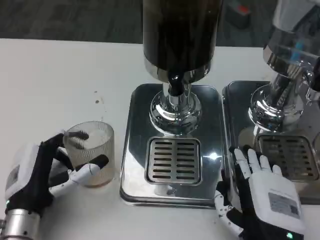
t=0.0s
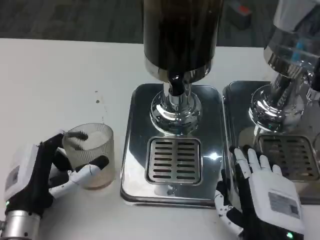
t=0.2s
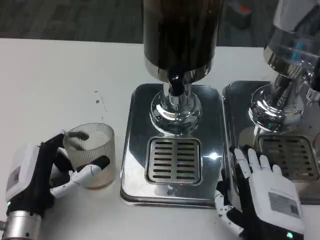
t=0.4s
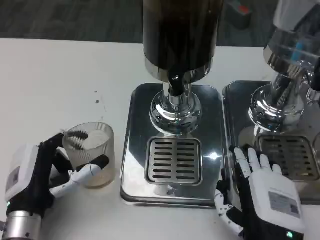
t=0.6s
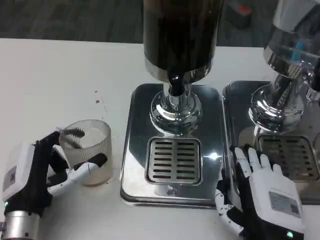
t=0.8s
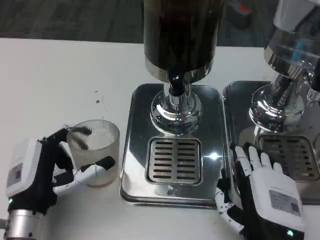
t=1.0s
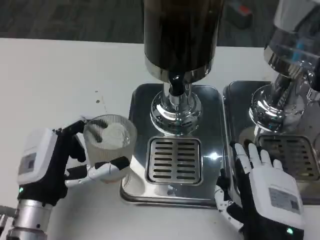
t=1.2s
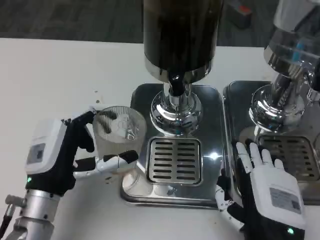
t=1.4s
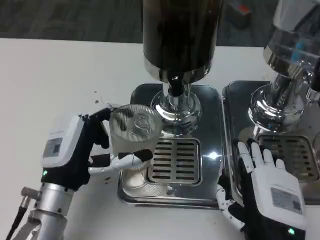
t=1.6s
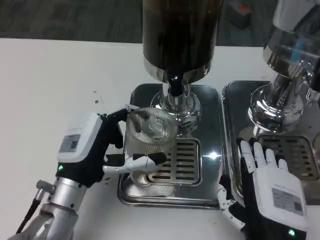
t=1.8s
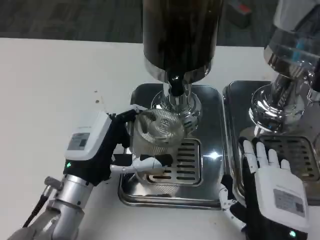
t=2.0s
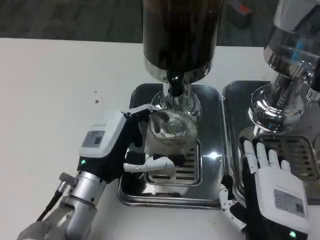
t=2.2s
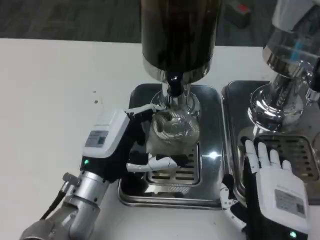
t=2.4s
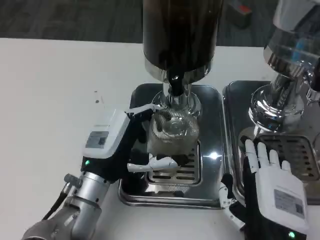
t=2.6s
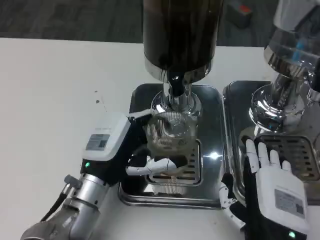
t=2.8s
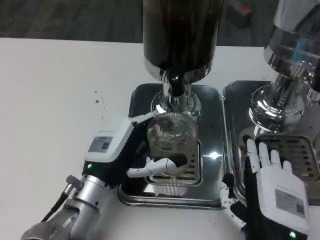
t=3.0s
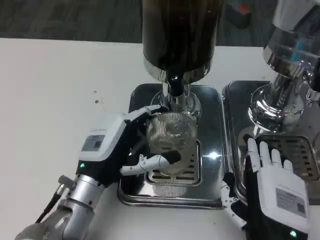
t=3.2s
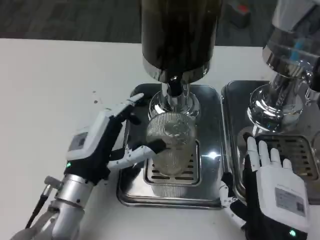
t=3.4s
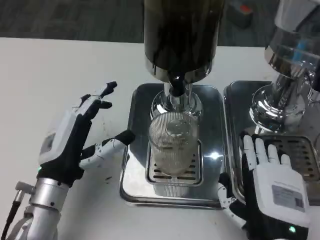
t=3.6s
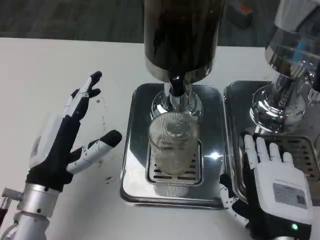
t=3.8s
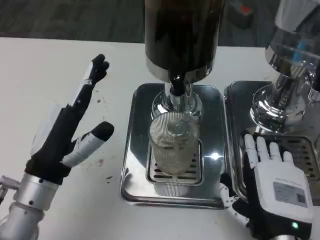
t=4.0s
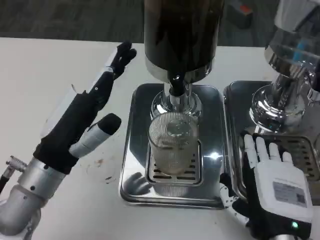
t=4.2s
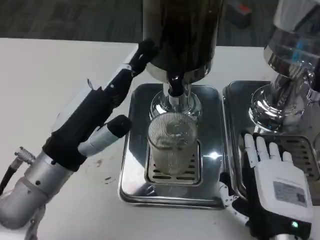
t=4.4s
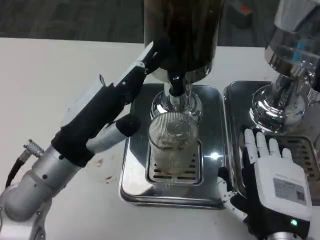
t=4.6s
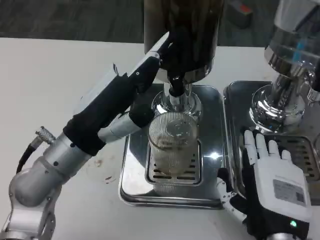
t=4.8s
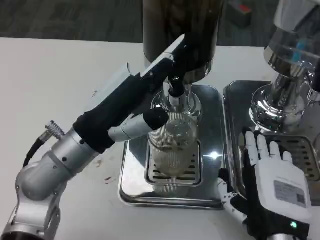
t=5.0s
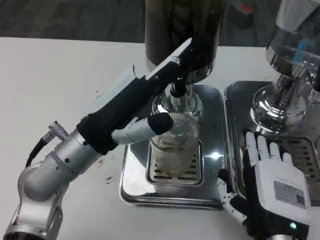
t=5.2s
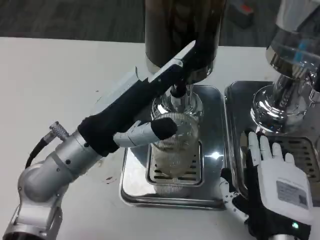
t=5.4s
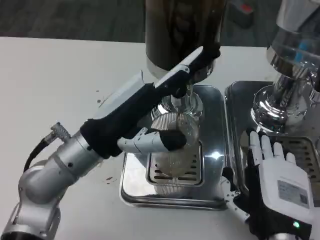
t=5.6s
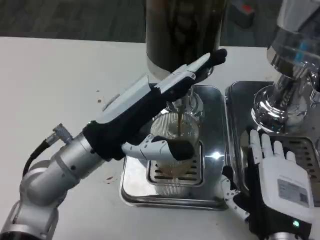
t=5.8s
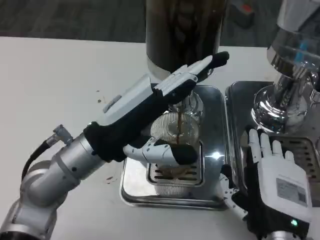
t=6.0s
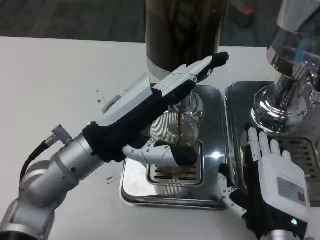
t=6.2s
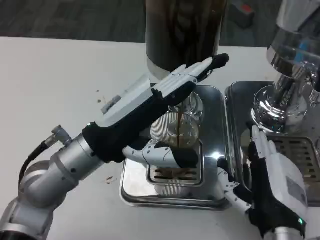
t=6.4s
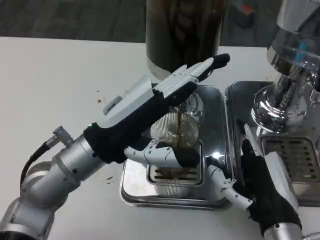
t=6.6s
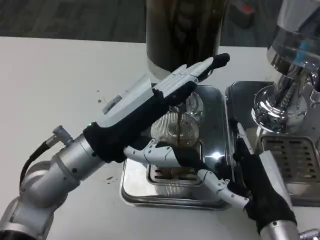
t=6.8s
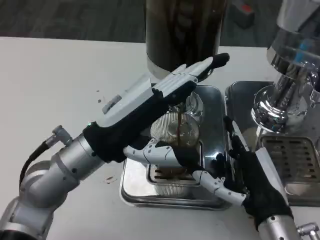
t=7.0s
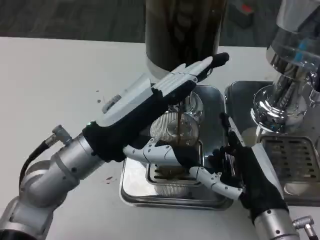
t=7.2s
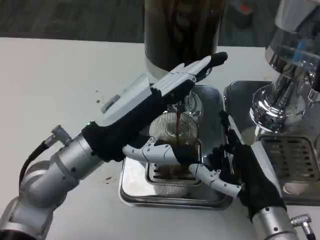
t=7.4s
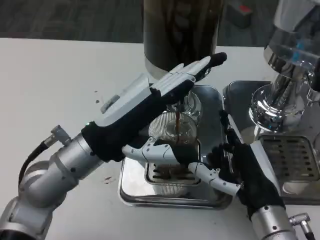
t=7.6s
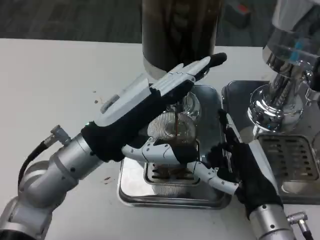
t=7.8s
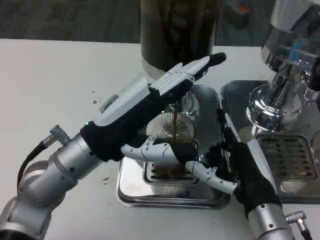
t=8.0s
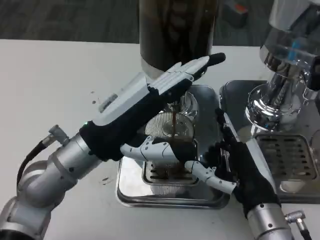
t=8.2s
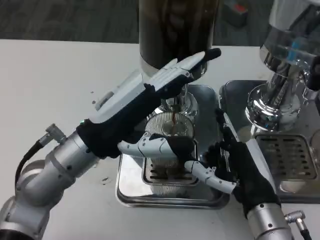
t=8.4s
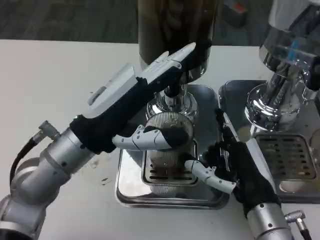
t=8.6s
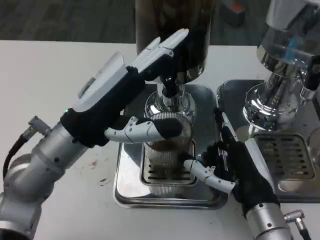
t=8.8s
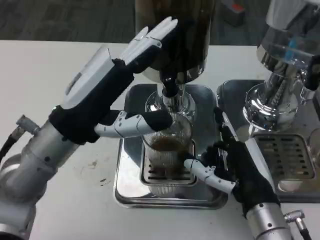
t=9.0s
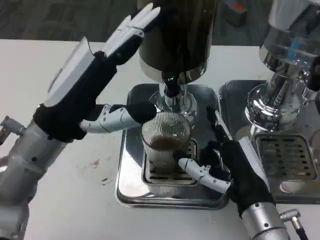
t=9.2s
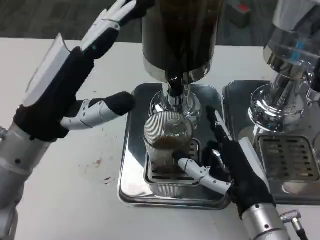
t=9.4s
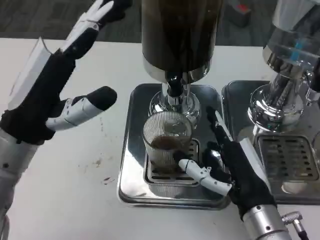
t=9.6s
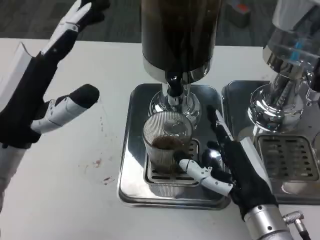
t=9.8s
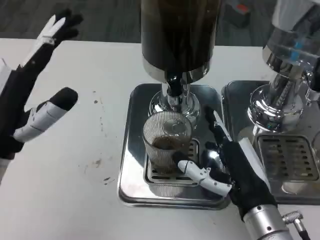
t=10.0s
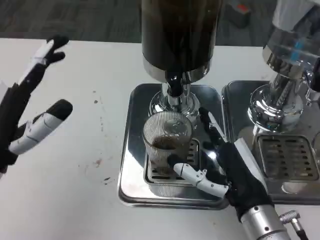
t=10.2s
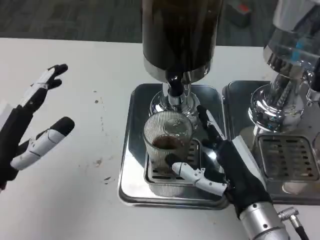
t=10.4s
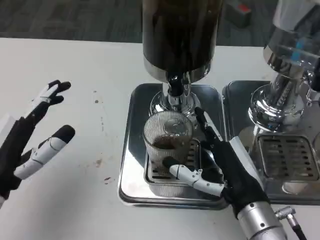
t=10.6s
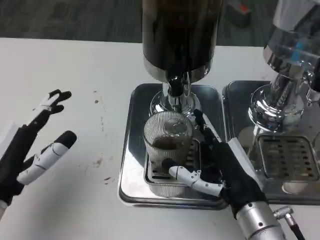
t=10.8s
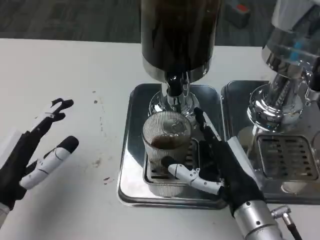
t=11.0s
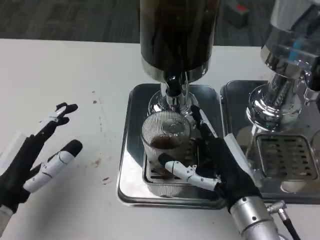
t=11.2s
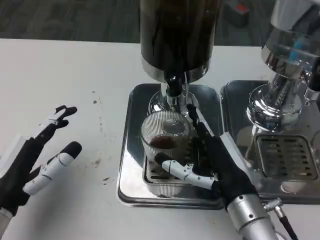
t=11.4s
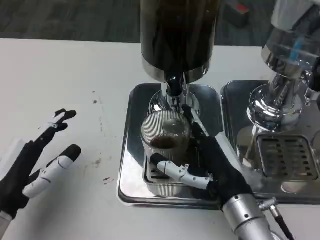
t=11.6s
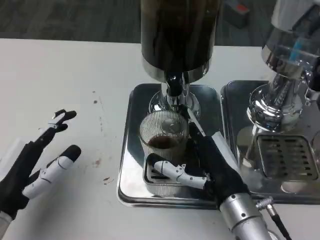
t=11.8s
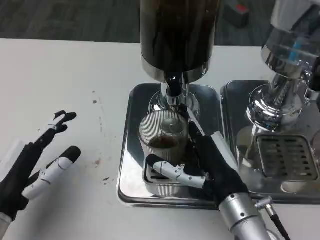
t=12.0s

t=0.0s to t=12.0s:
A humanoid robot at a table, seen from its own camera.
Task of the whole recording: Grasp the cup under the faucet to collect the drink, then remove the cup.
t=0.0s to t=1.6s: The left hand changes place by approximately 5 cm.
t=3.0s to t=4.4s: The left hand shifts about 10 cm upward.
t=9.0s to t=10.4s: The left hand travels to the left, backward and downward by approximately 10 cm.

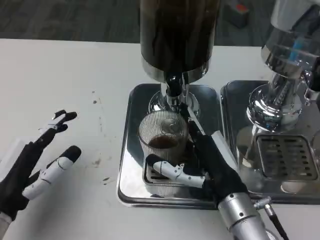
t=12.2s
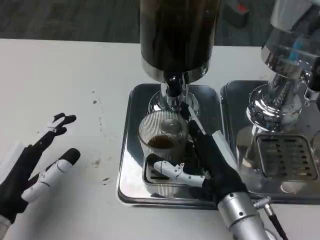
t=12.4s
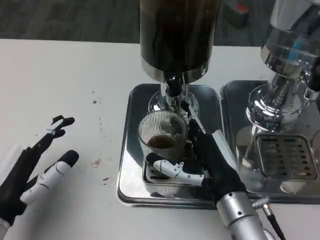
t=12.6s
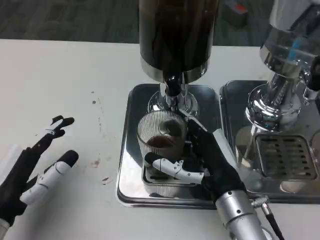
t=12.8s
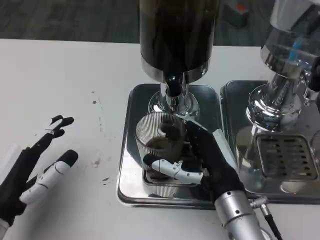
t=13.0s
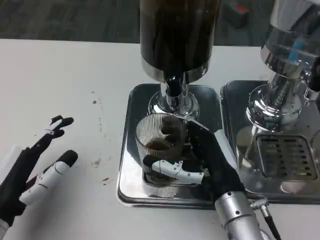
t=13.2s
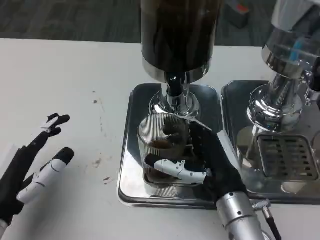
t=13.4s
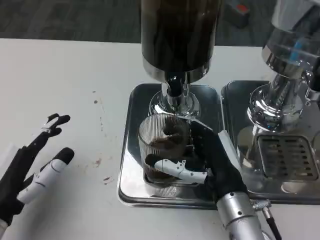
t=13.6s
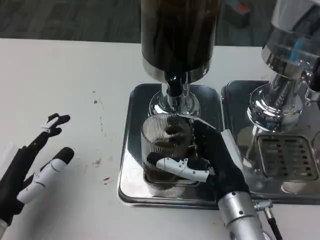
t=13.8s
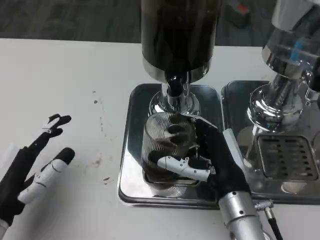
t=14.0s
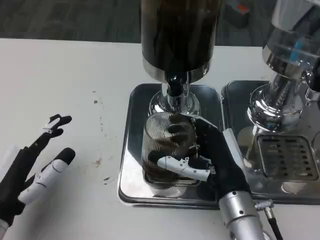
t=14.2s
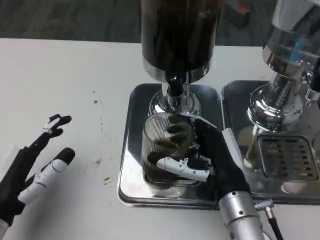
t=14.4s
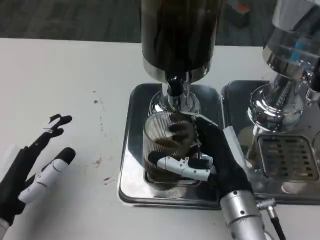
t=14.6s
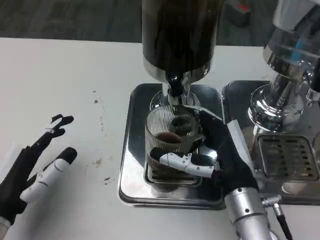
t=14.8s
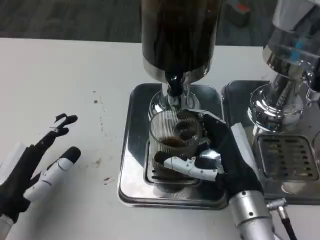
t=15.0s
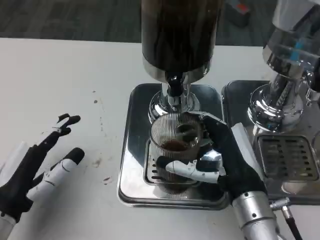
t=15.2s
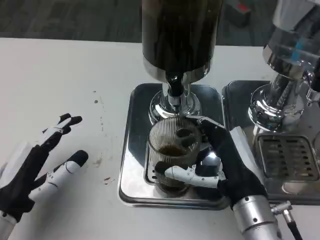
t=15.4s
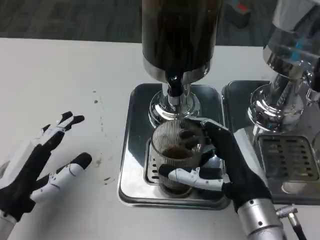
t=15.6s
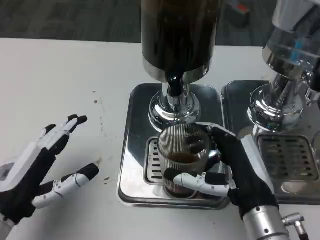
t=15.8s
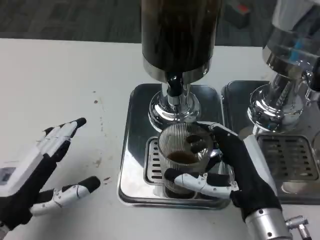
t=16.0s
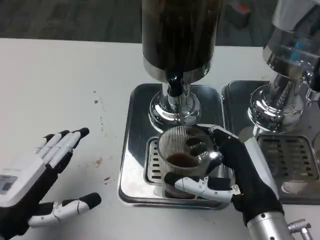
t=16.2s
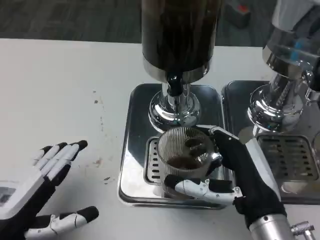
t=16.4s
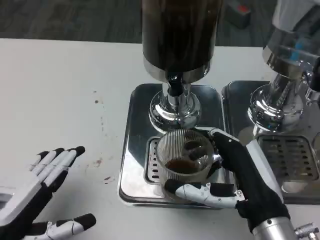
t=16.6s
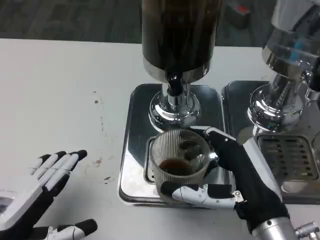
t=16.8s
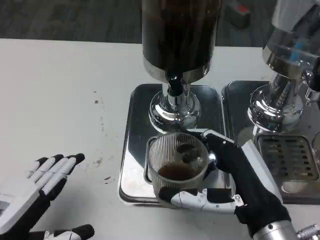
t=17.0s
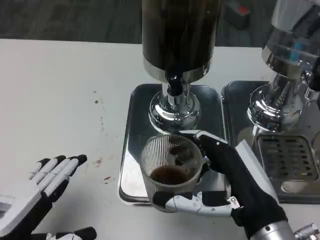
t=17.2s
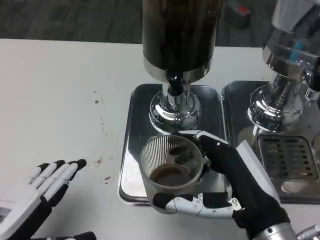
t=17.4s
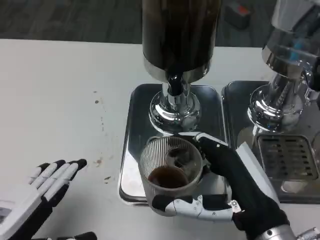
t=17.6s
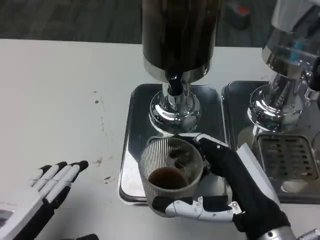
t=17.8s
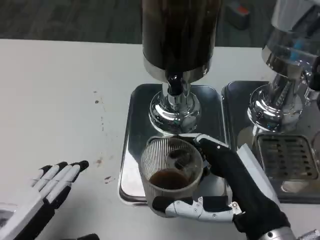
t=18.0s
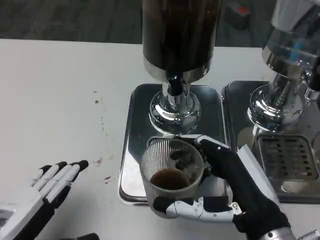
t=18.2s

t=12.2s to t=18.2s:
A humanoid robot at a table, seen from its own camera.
Task of the whole recording: Grasp the cup under the faucet to collect the drink, then remove the cup.
t=12.2s to t=15.2s: The hands move only a little.
t=15.2s to t=16.6s: The right hand moves approximately 5 cm. Meanwhile the left hand moves roughly 5 cm.

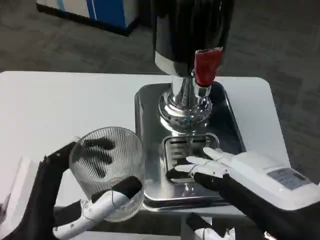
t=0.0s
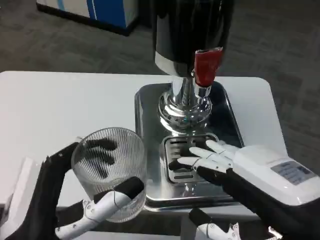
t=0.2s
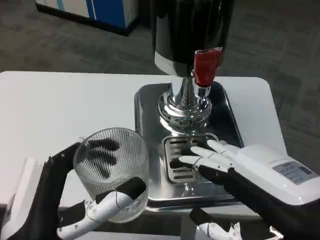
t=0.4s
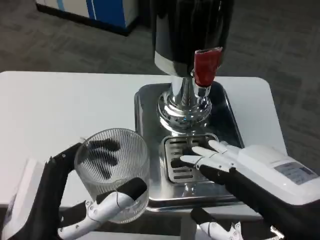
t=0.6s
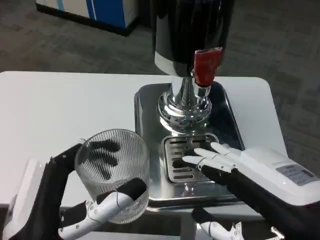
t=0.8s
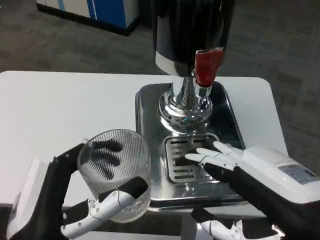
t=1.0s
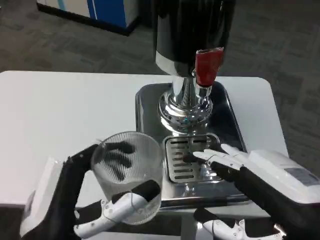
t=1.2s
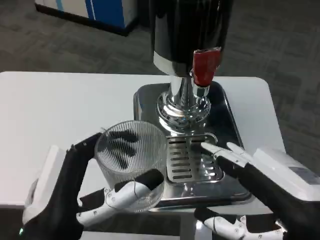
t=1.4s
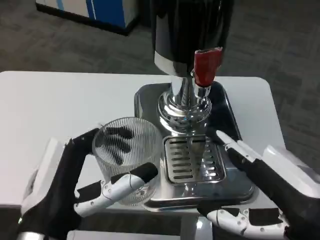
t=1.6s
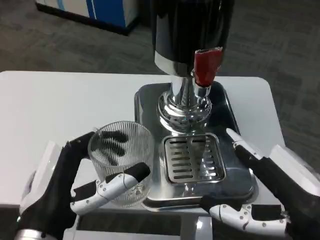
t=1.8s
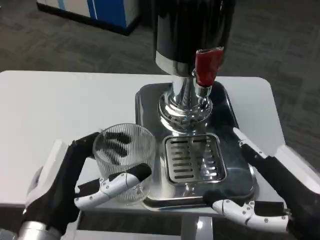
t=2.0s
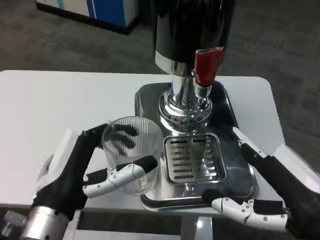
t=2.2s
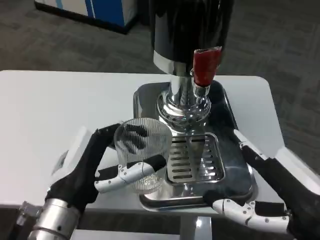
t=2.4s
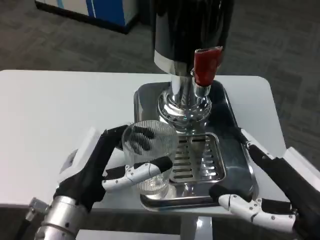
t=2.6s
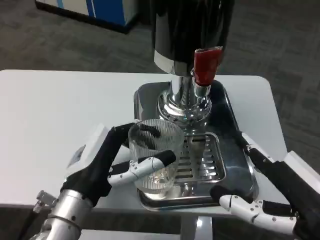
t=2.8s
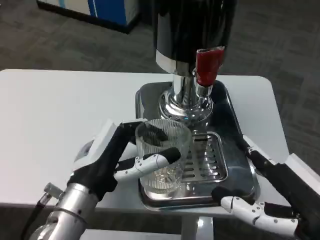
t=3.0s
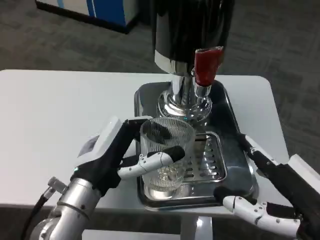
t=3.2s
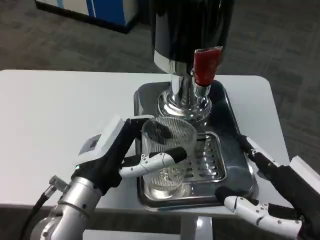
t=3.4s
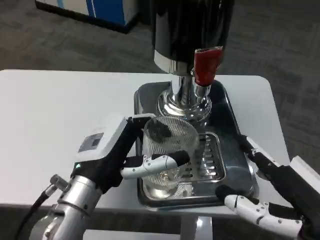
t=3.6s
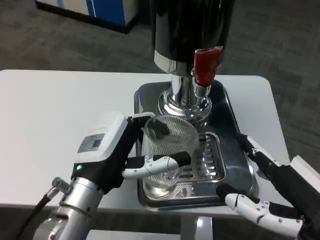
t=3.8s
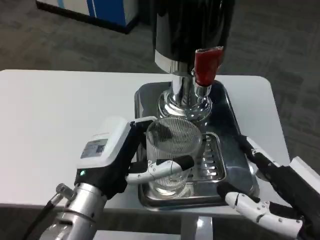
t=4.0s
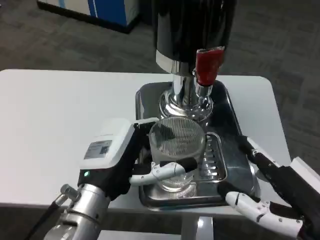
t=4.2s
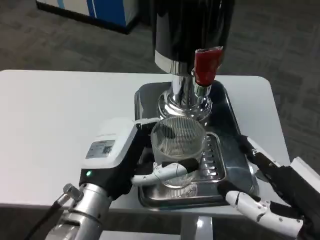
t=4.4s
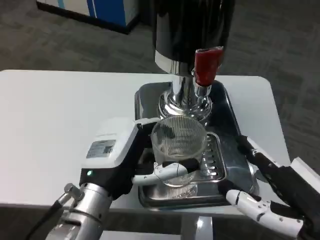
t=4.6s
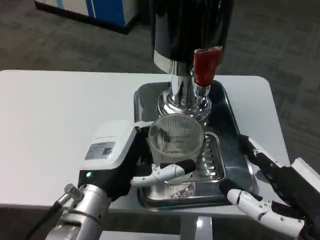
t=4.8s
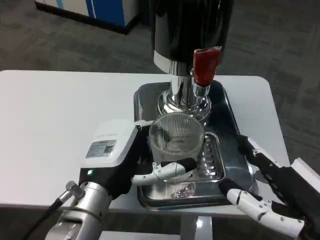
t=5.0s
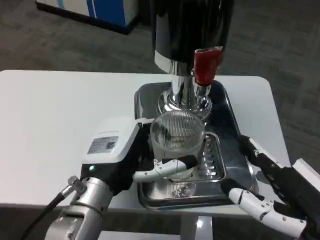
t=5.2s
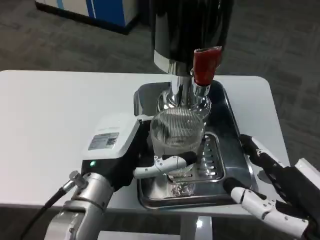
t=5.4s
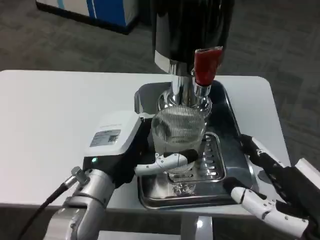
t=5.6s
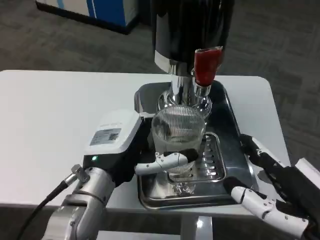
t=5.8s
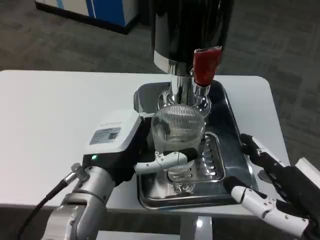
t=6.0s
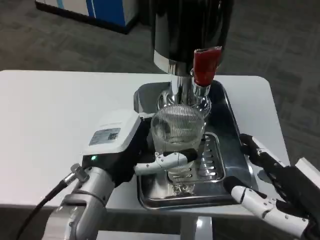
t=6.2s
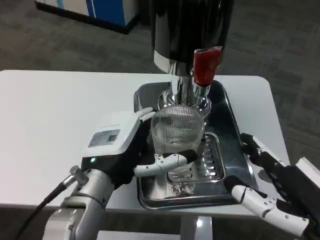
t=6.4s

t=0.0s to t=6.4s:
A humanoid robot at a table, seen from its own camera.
Task of the whole recording: Grasp the cup under the faucet to collect the drink, then remove the cup.
t=1.6s to t=3.2s: The left hand travels forward by about 10 cm.
t=4.8s to t=6.4s: The hands move only a little.
